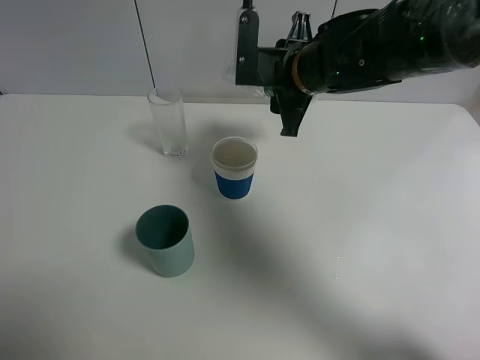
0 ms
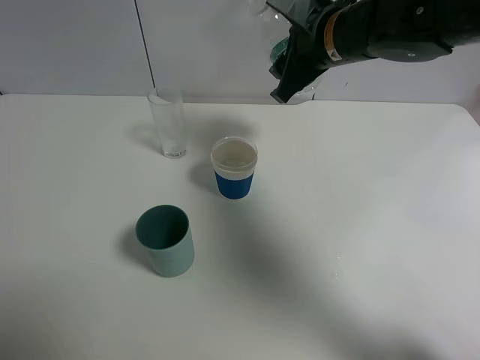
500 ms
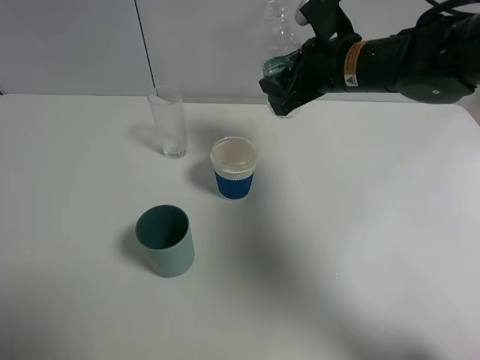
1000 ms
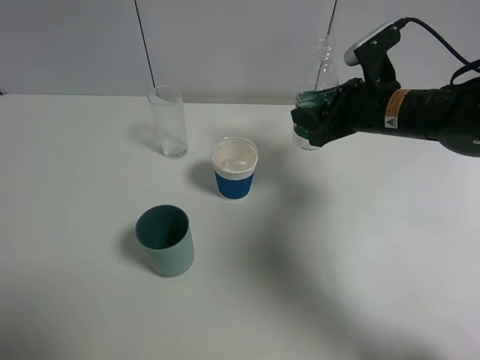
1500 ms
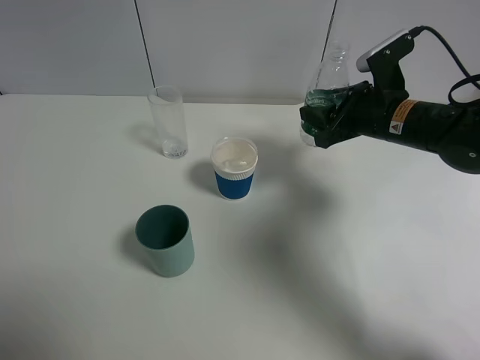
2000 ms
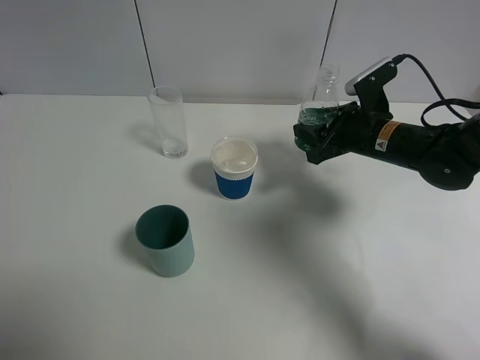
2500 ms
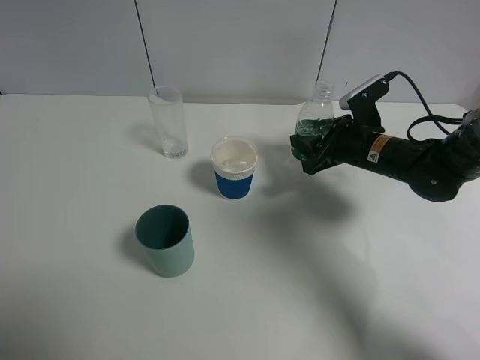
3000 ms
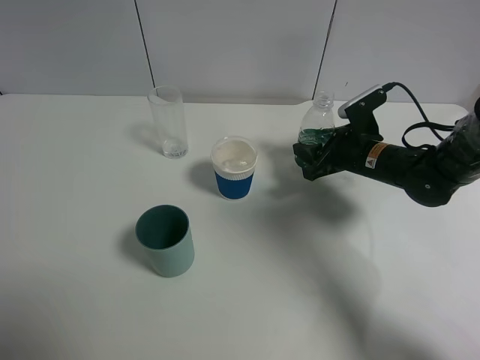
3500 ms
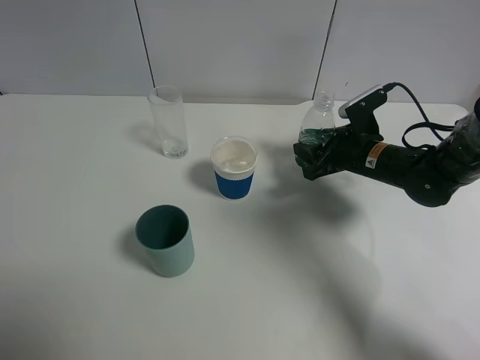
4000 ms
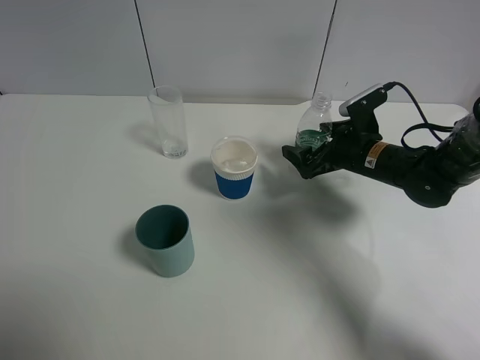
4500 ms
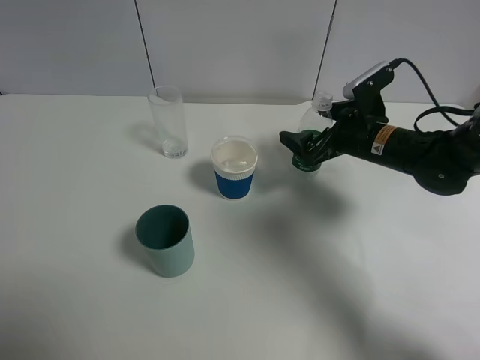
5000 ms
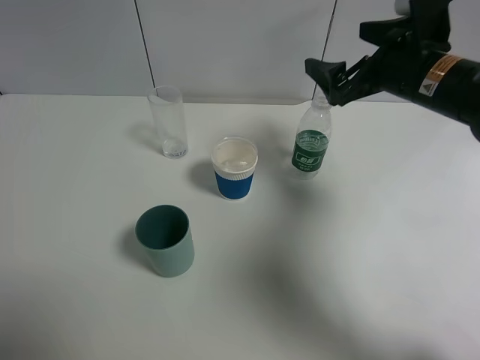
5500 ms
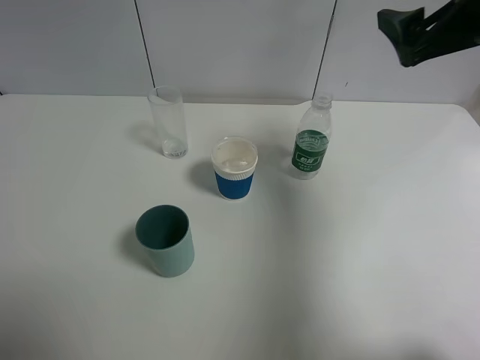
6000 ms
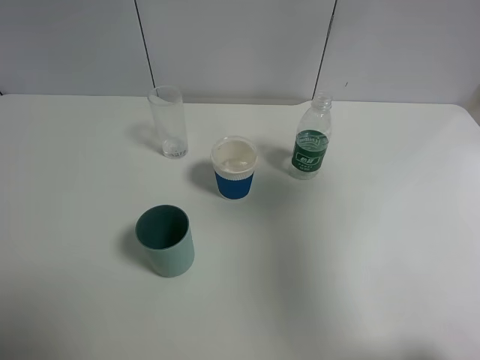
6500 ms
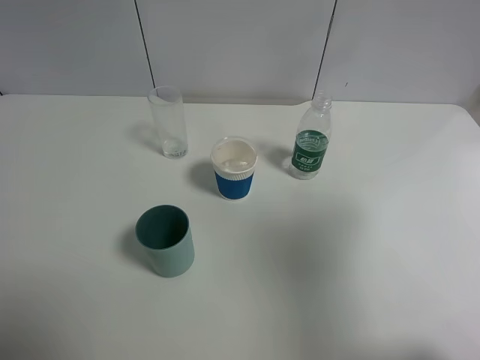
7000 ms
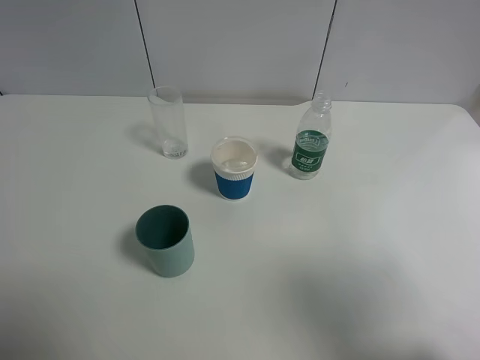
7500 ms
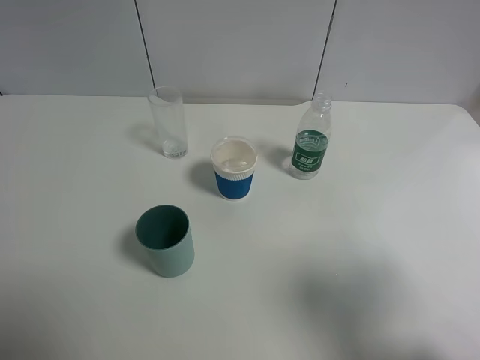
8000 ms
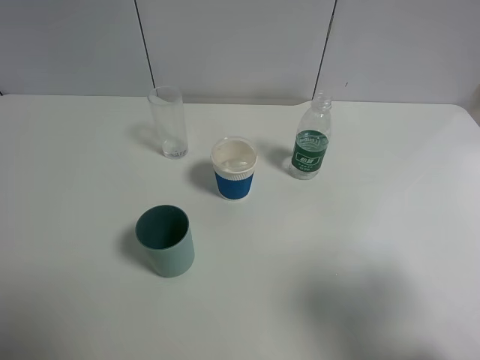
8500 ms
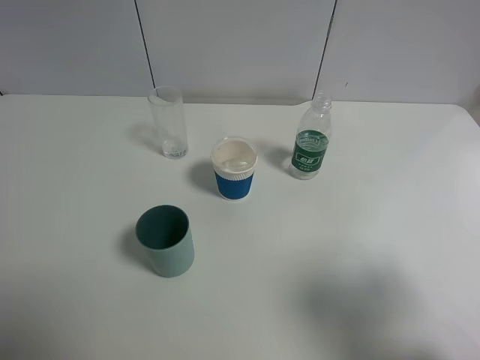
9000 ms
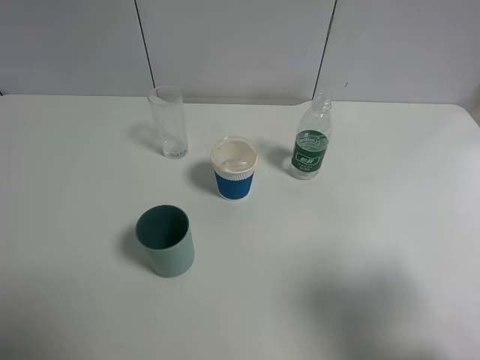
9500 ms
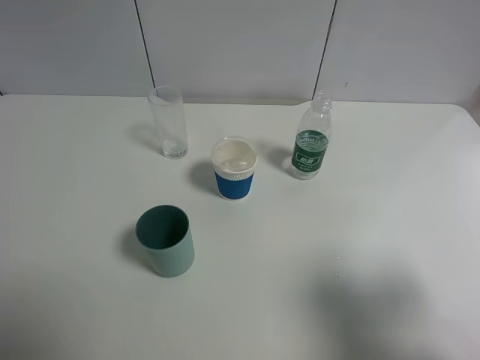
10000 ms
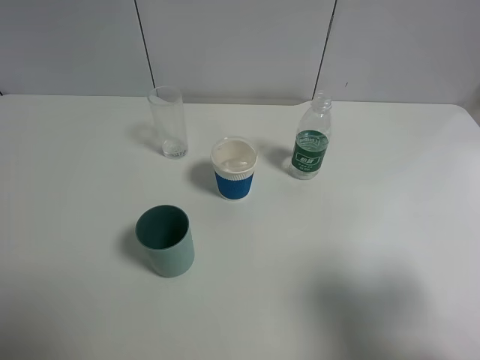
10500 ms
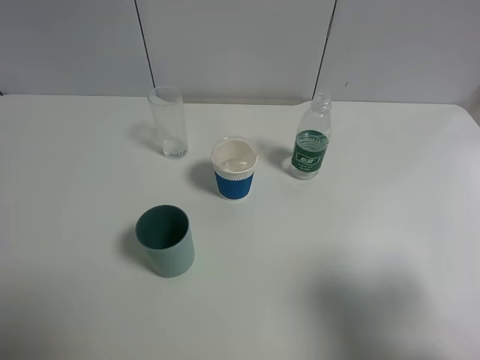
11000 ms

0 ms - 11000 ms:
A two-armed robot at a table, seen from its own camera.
Task of the whole recording: use a gripper to hold the bottle of the drink and pour it into a random cup.
Step, 500 ms - 5000 ms: Place the mineral water bottle on the table with the right gripper.
0 ms - 2000 ms: The right gripper is displaced to the right and downward by some 15 cm.
2000 ms - 3500 ms: The right gripper heads downward, covering roughly 10 cm.
3500 ms - 5500 ms: The right gripper heads upward, covering approximately 15 cm, and opens.
5500 ms - 7500 ms: The right gripper shifts some 35 cm backward.
